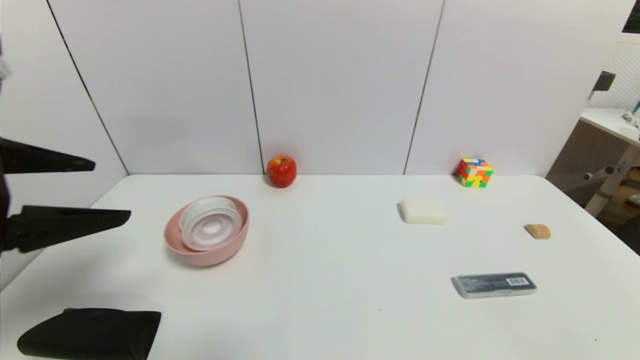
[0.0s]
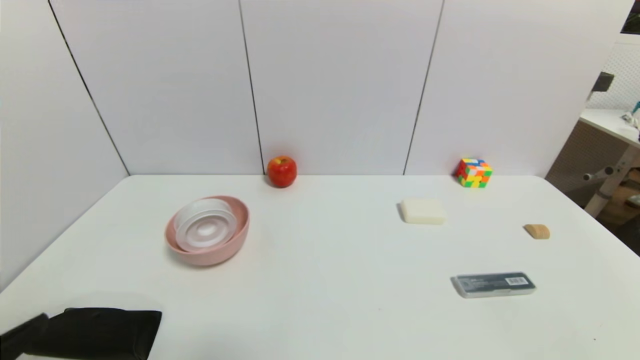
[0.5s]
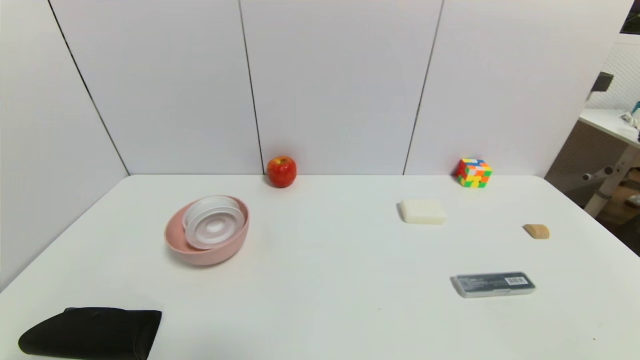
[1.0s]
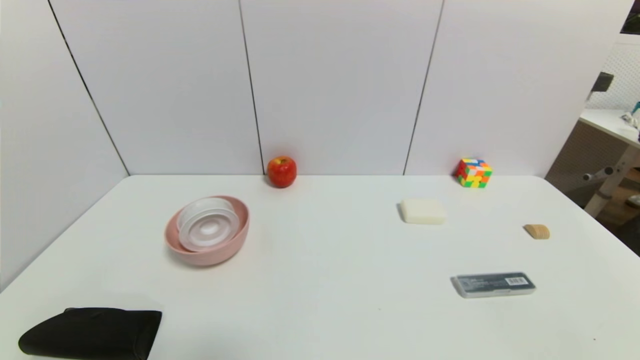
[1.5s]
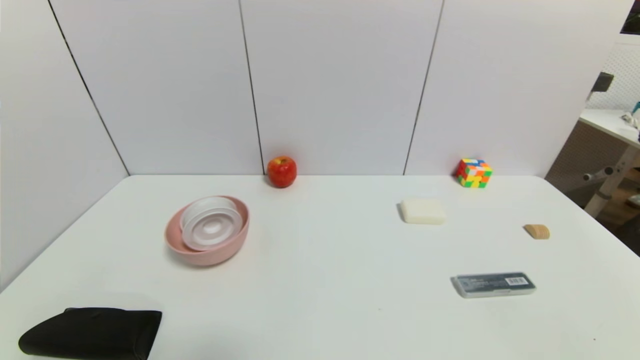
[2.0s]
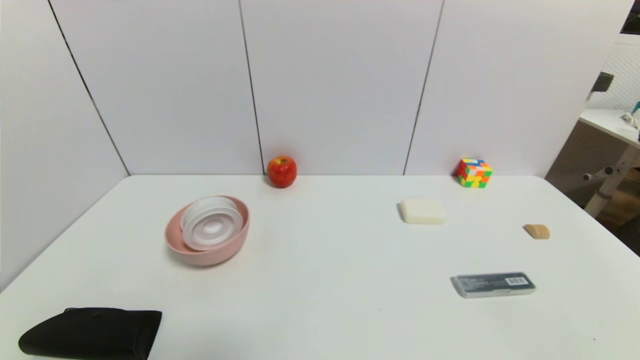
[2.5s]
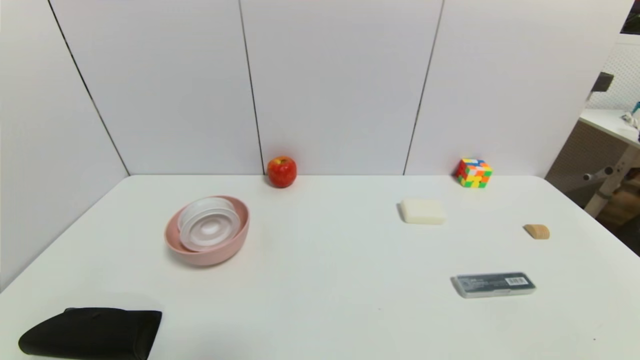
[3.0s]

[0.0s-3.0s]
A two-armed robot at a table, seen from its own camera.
Task of the whole recording: use a gripper to pick the target object and place on the pink bowl.
0.0s to 1.5s: The left gripper heads downward and backward, covering approximately 30 cm.
1.5s to 3.0s: The two grippers keep their place.
